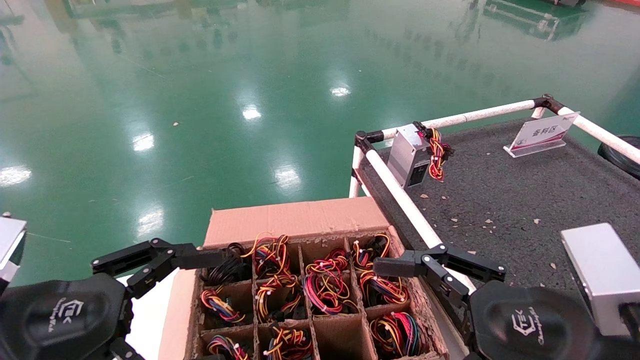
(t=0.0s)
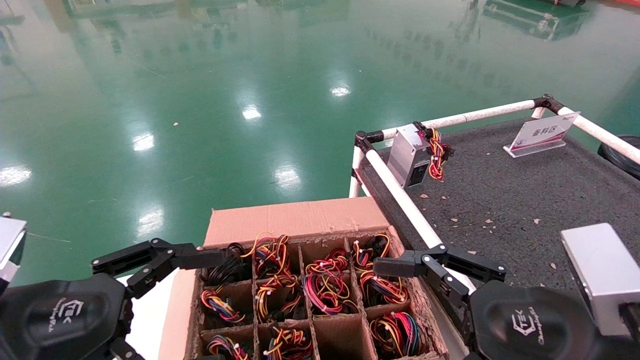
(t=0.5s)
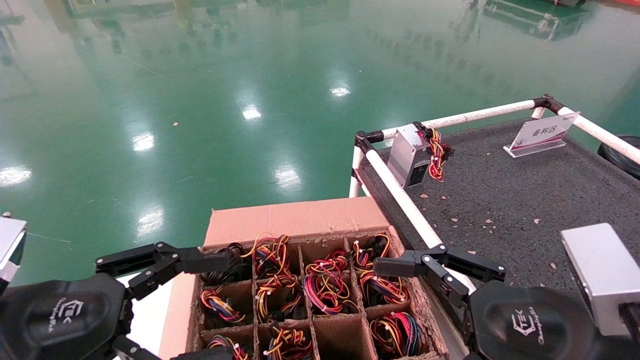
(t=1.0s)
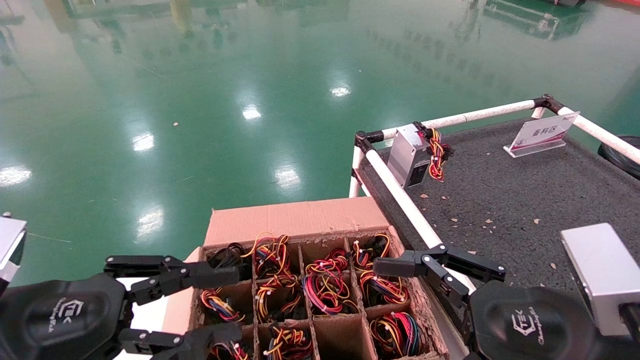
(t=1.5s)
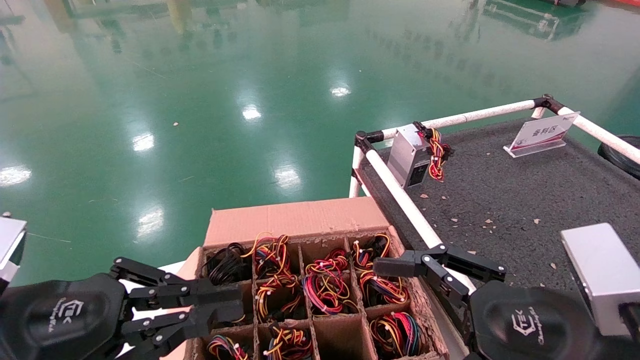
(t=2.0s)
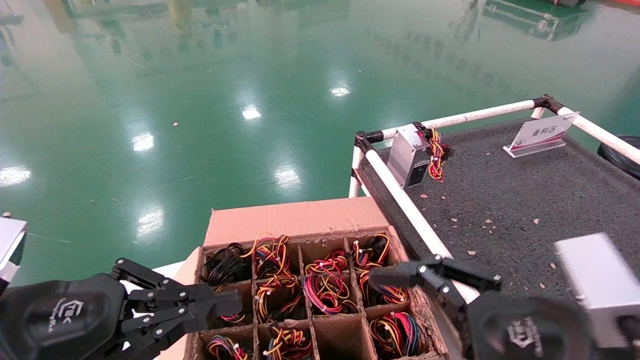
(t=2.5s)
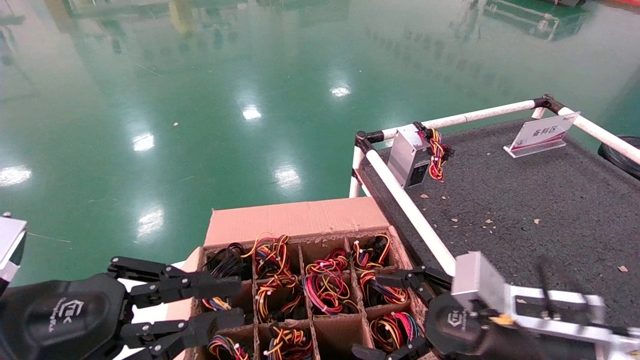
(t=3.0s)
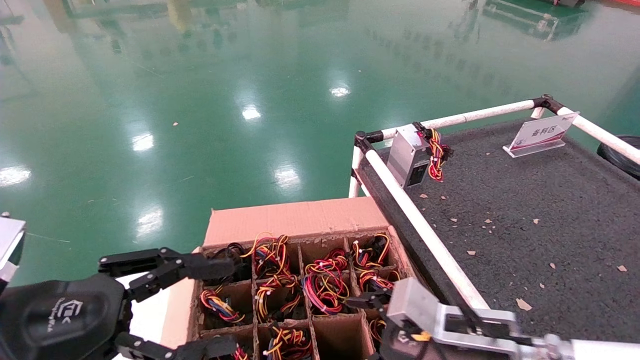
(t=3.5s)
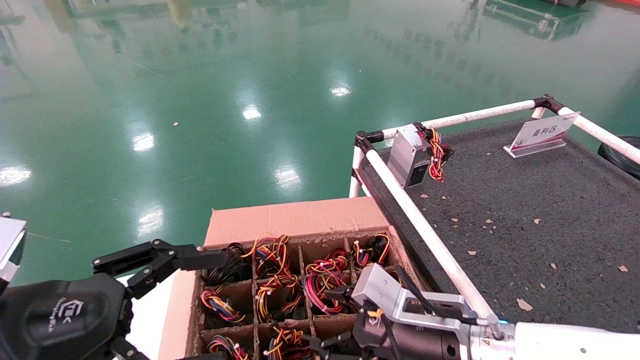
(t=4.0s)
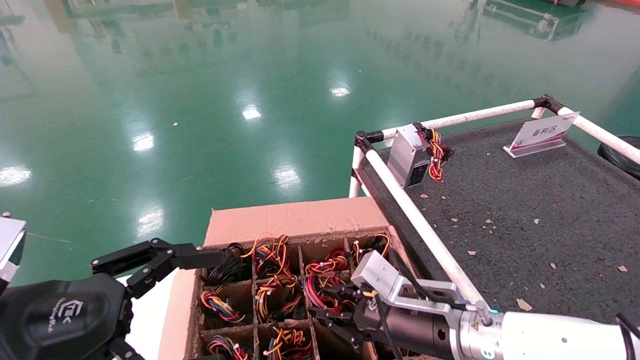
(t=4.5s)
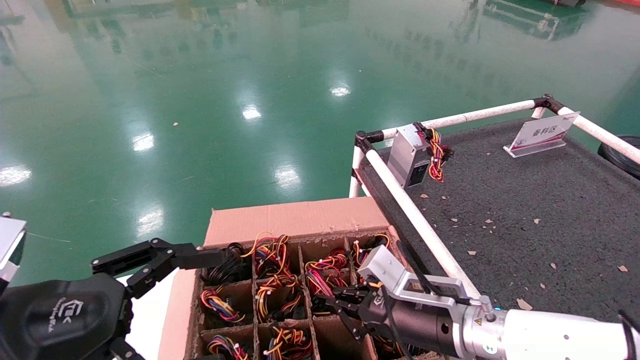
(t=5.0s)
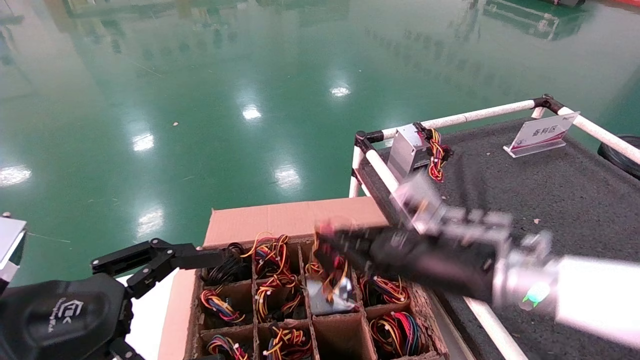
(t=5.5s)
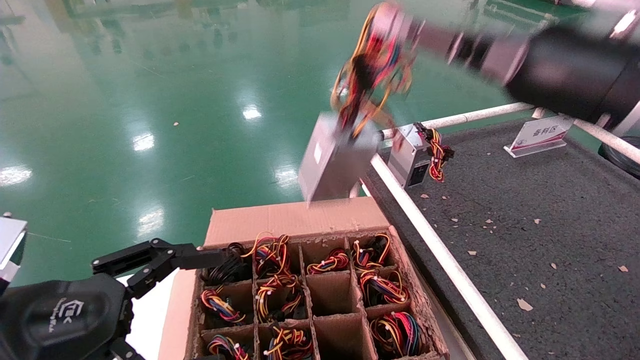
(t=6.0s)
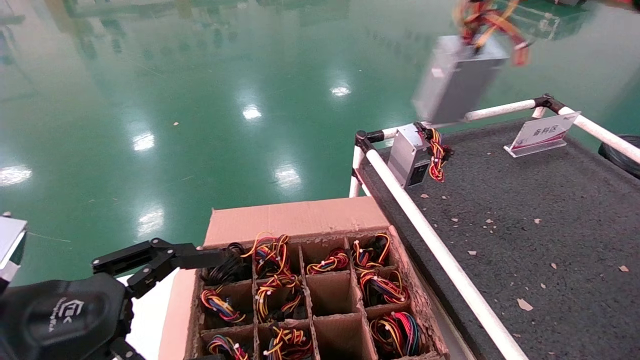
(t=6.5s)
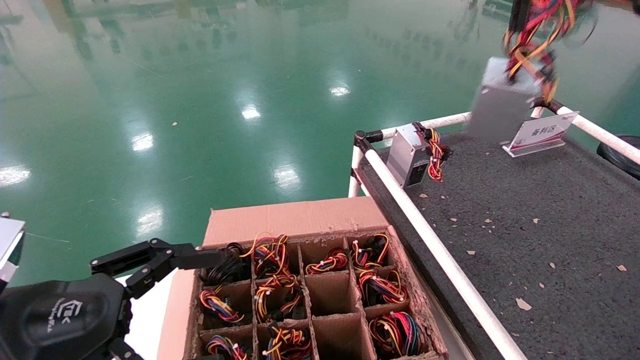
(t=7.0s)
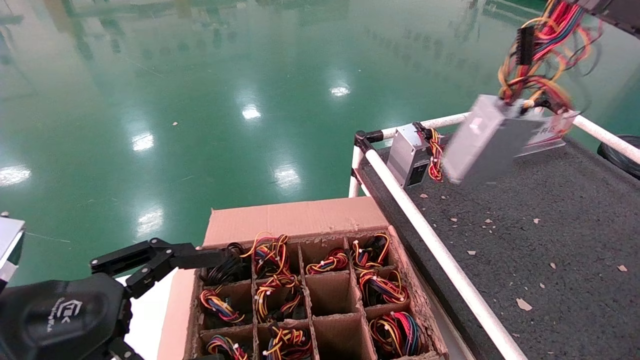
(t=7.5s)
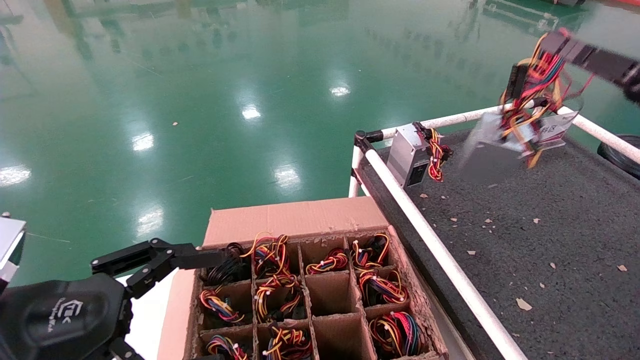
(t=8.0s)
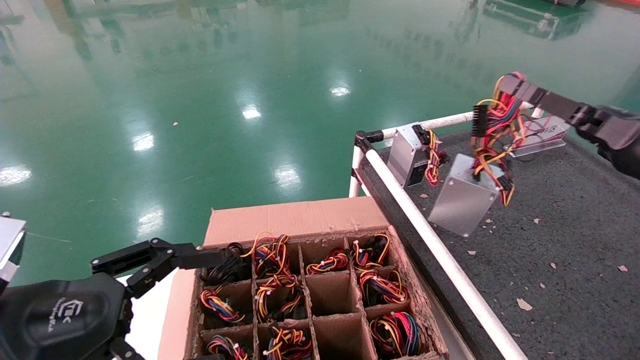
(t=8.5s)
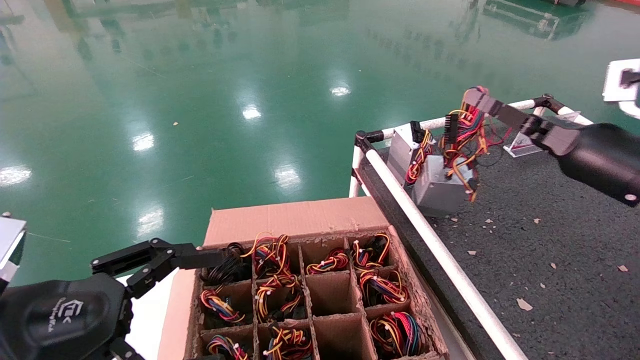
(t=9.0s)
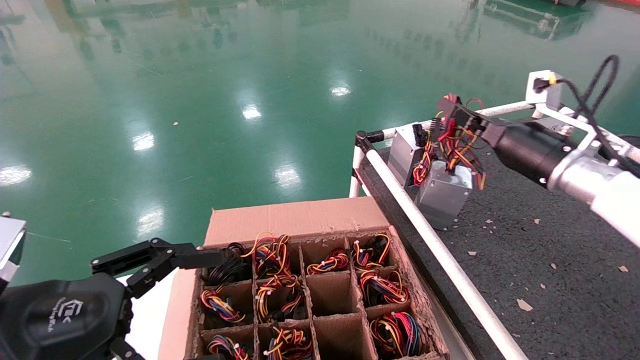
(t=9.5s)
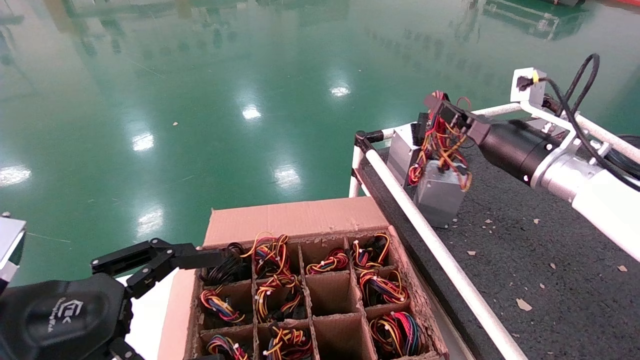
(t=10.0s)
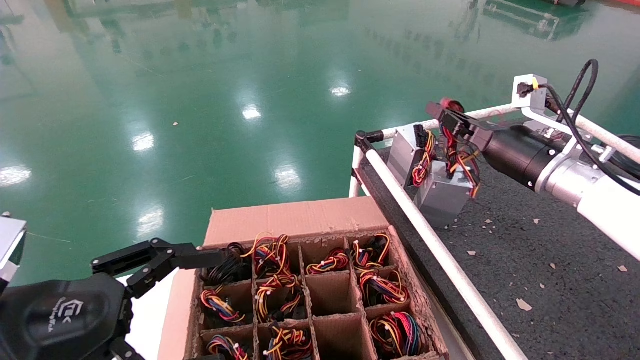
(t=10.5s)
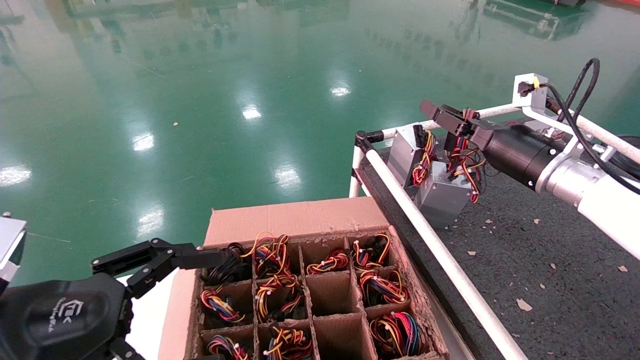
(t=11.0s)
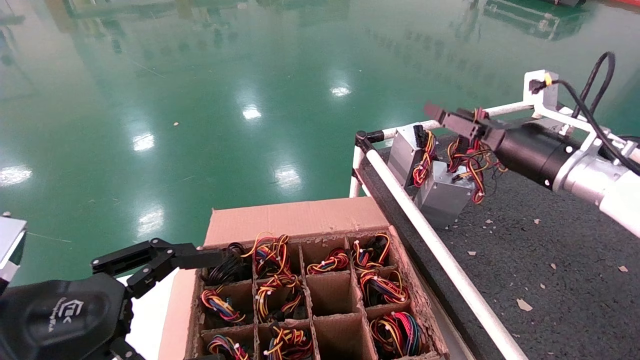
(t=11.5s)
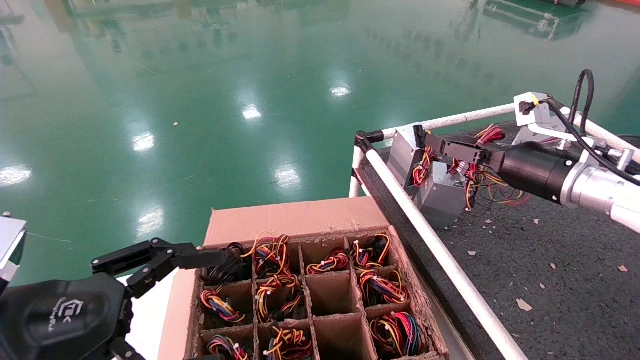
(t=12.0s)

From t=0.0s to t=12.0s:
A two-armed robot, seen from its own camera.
Step, from t=3.0s to t=5.0s: Grab and lift the power supply from the large box.
Step, from t=5.5s to t=10.5s: Place the power supply on the operating table.
From t=0.0s to t=2.0s: The left gripper closes up.
From t=2.0s to t=4.0s: The right gripper travels forward, downward and to the left by approximately 20 cm; the left gripper opens up.
From t=4.0s to t=6.0s: The right gripper is displaced upward by roughly 30 cm, and closes.
From t=6.0s to t=8.0s: The right gripper is displaced to the right by approximately 20 cm.
From t=8.0s to t=10.0s: The right gripper goes some 20 cm forward and to the left.
From t=10.0s to t=12.0s: The right gripper opens its fingers.

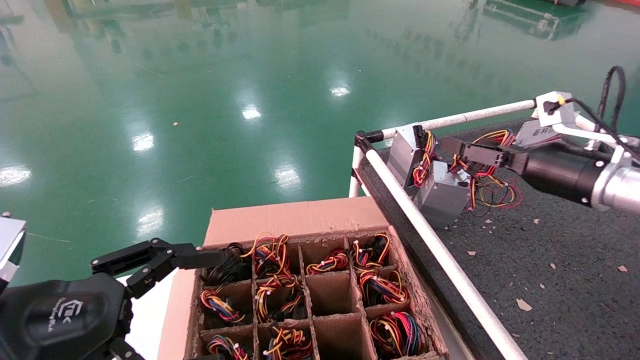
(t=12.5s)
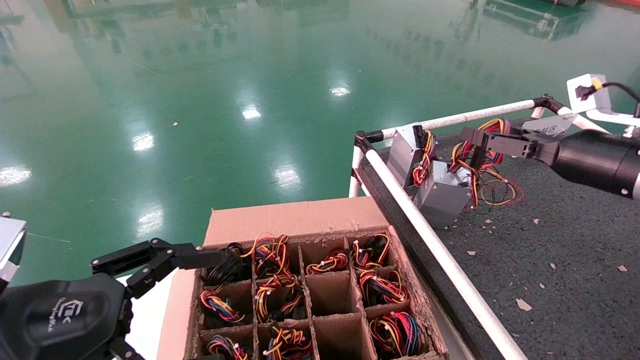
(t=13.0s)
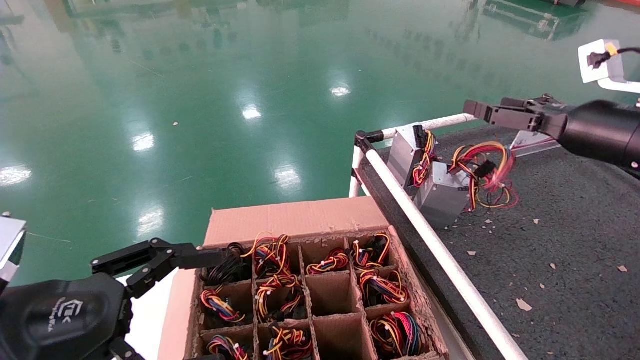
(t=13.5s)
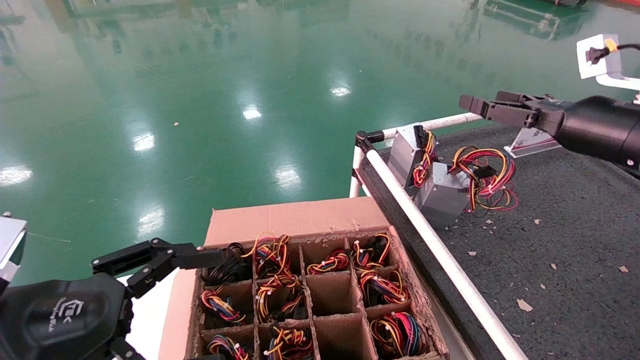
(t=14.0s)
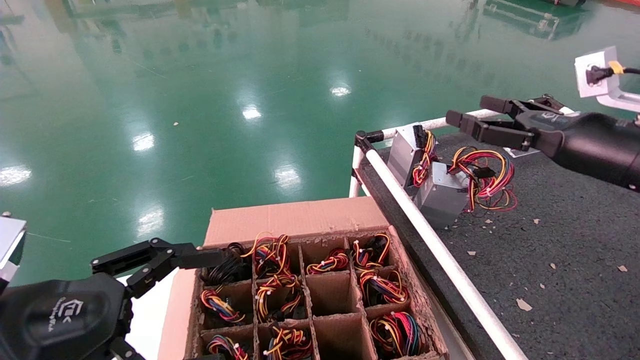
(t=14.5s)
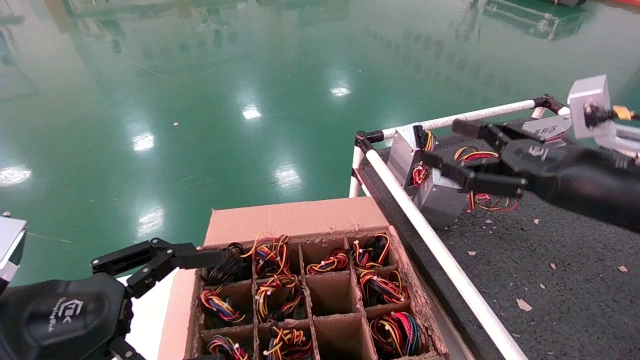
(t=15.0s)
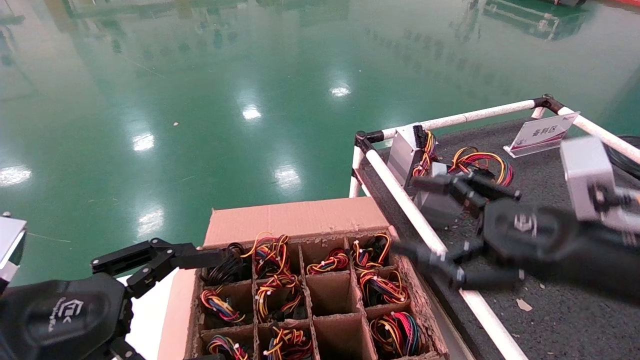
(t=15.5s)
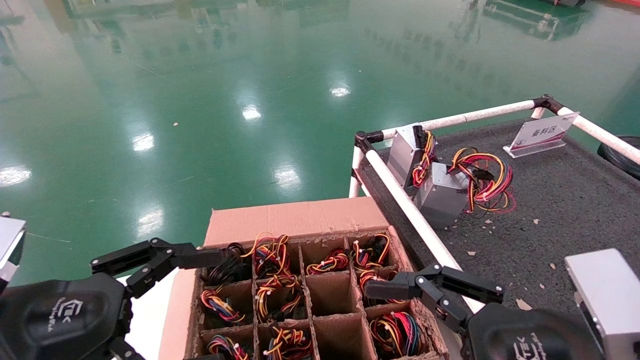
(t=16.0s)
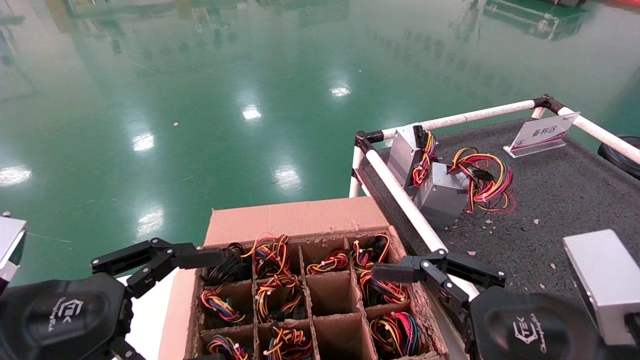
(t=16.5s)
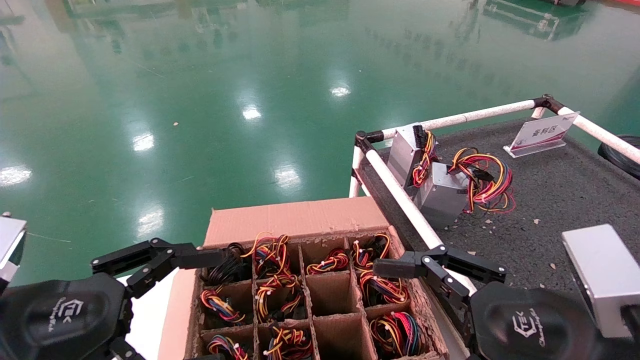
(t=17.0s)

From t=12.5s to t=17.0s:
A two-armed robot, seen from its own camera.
From t=12.5s to t=14.5s: The right gripper is displaced backward by roughly 5 cm.
From t=14.5s to t=17.0s: The right gripper heads backward, downward and to the left, covering roughly 20 cm.
